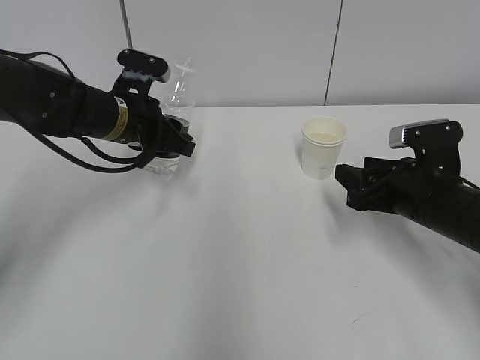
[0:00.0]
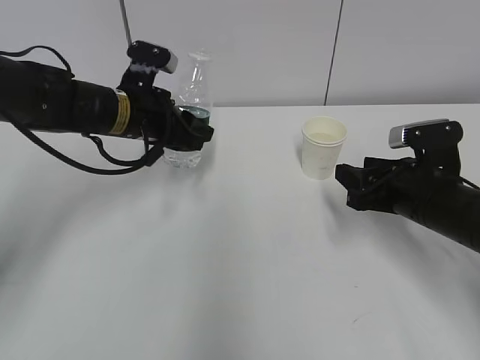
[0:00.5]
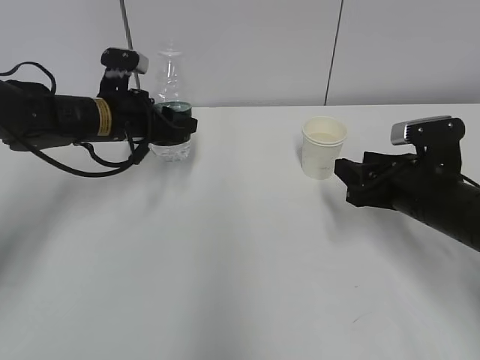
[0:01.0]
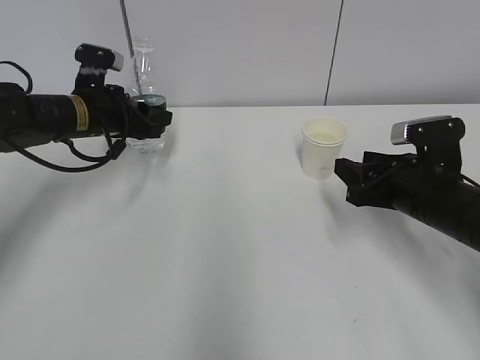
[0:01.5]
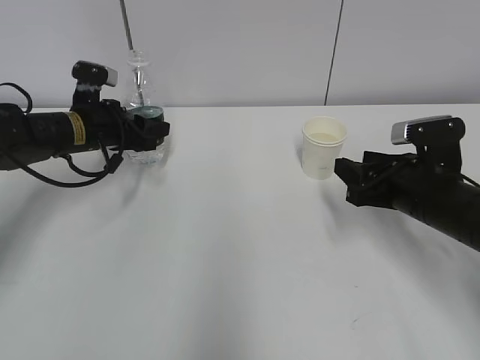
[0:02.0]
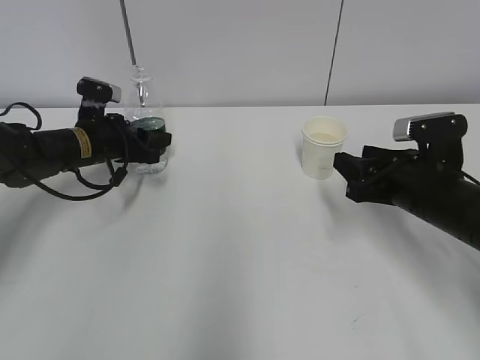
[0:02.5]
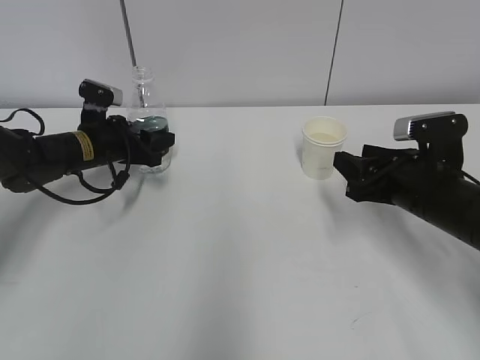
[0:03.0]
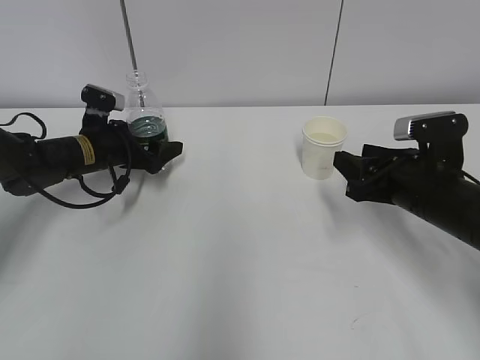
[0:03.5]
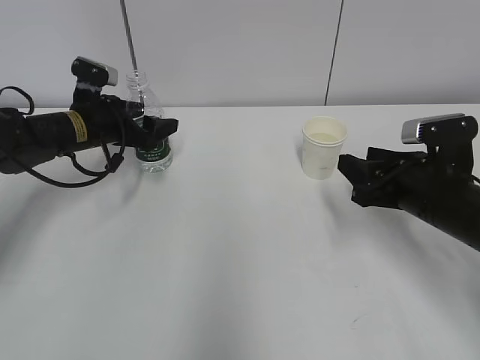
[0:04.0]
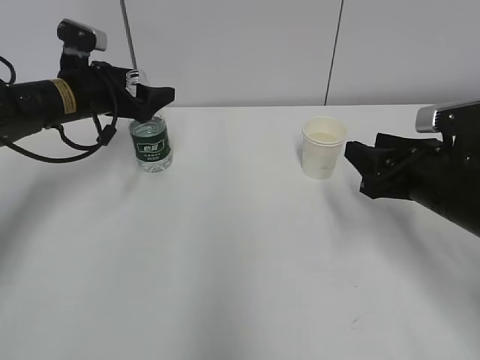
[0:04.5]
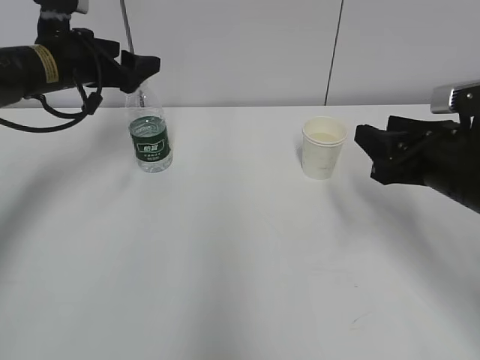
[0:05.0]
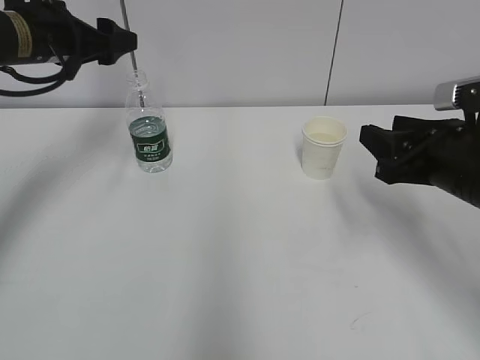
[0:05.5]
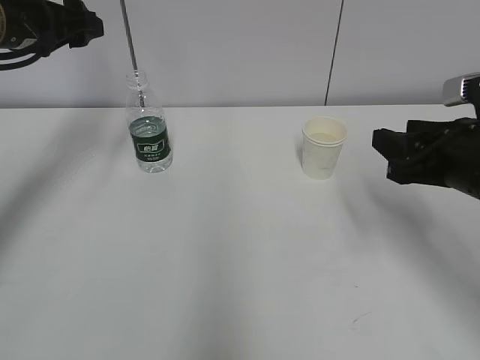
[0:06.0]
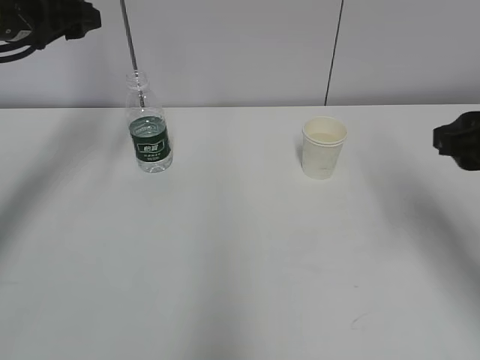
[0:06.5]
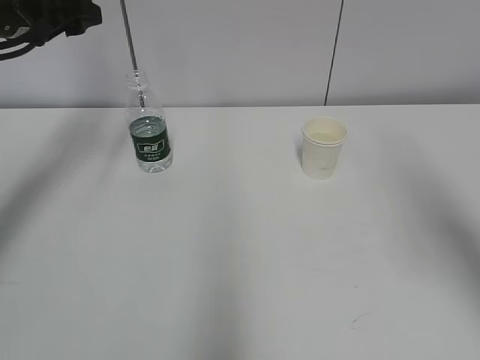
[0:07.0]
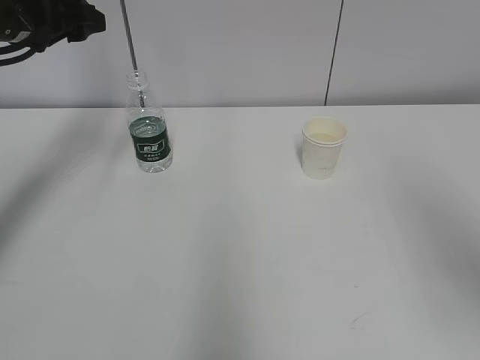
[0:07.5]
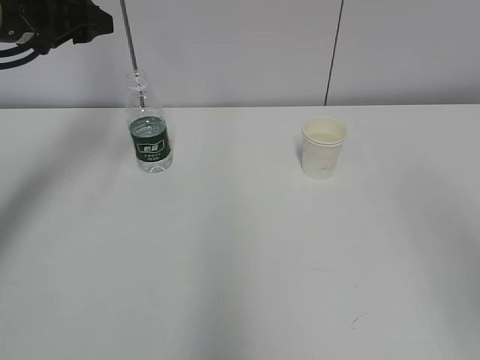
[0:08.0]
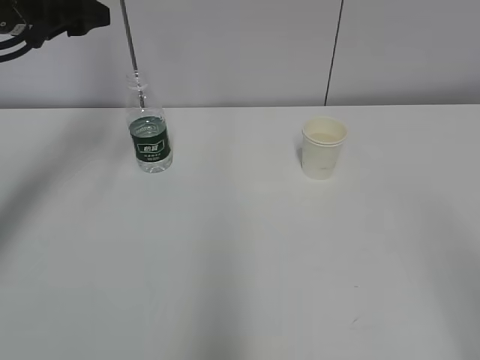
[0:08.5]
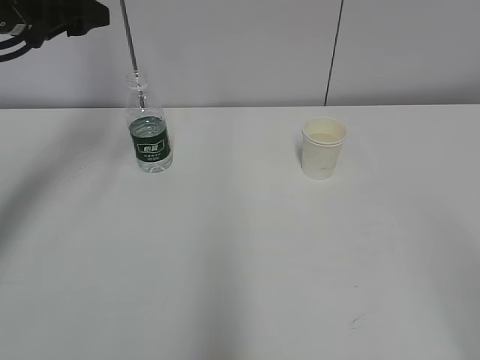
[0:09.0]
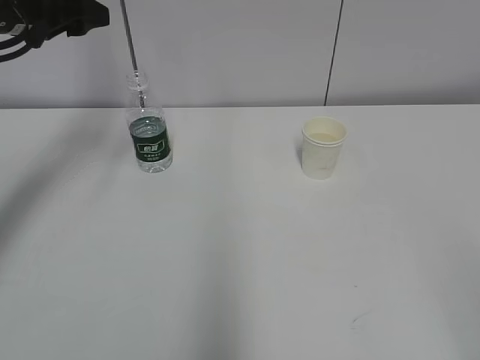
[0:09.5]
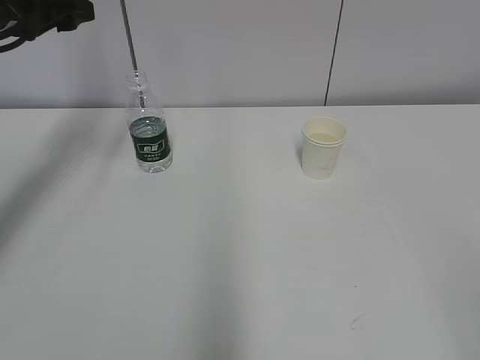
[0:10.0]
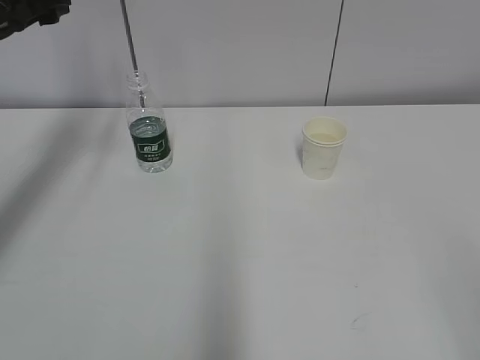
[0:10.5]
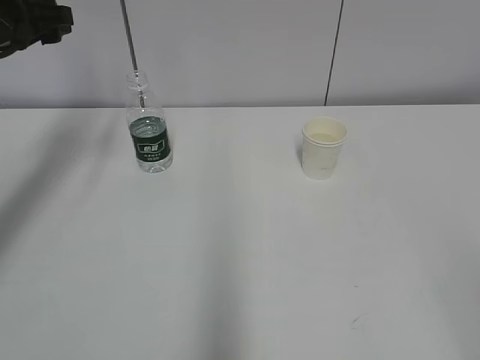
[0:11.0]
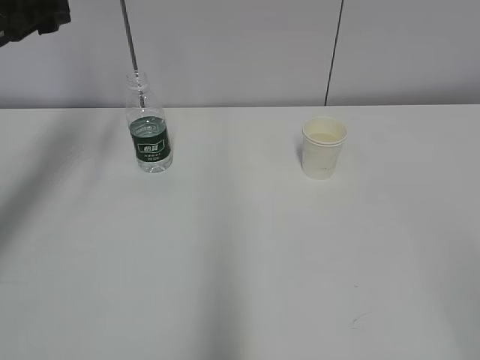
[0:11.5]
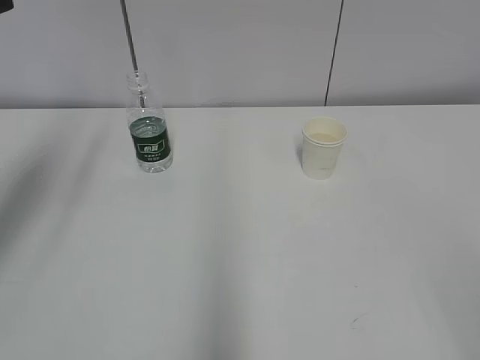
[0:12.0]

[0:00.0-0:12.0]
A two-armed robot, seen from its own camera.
0:00.0 to 0:02.0: The left gripper travels to the left by roughly 5 cm.
0:02.0 to 0:04.0: The left gripper opens.
0:04.0 to 0:06.0: The right gripper is displaced upward by roughly 5 cm. Meanwhile the left gripper moves upward, about 15 cm.
0:06.0 to 0:08.0: The right gripper travels backward and upward by some 25 cm.
0:10.0 to 0:12.0: The left gripper goes approximately 10 cm backward.

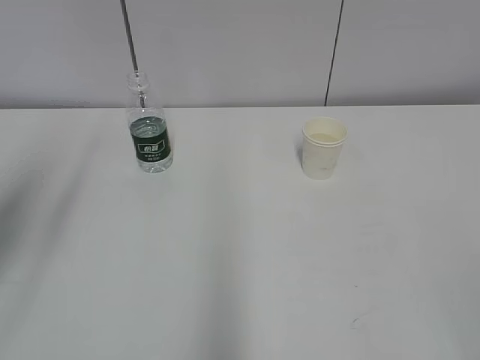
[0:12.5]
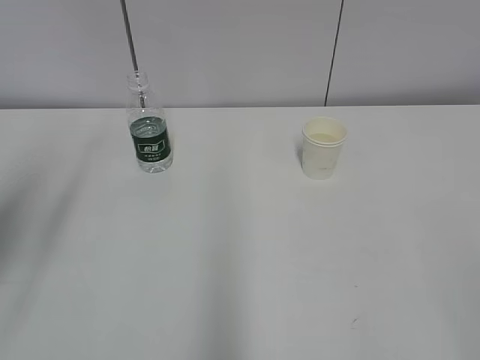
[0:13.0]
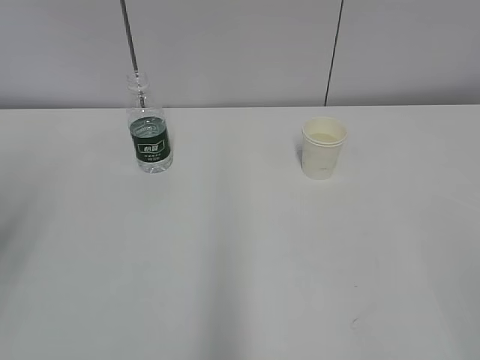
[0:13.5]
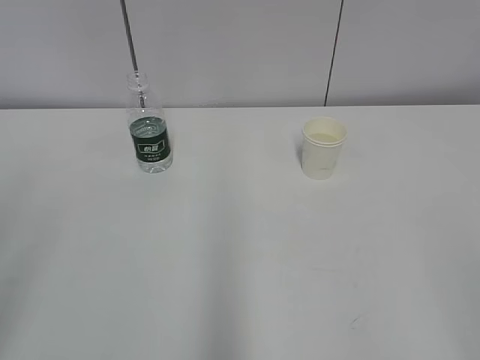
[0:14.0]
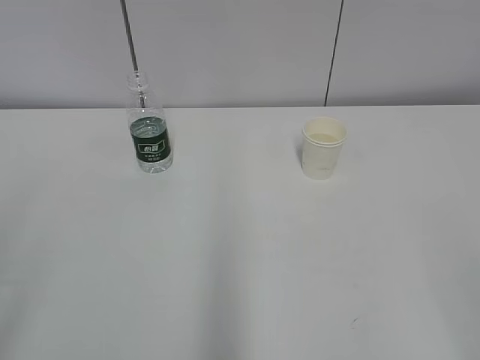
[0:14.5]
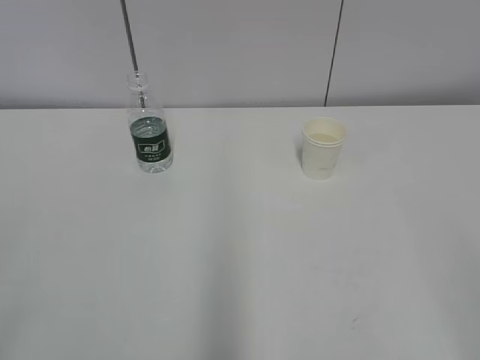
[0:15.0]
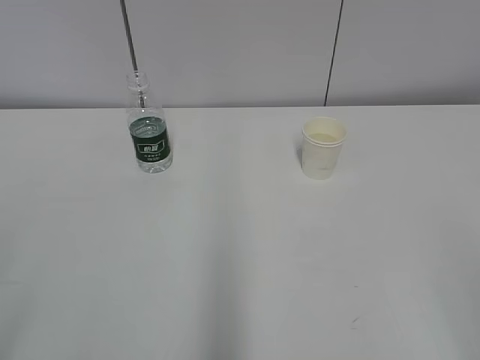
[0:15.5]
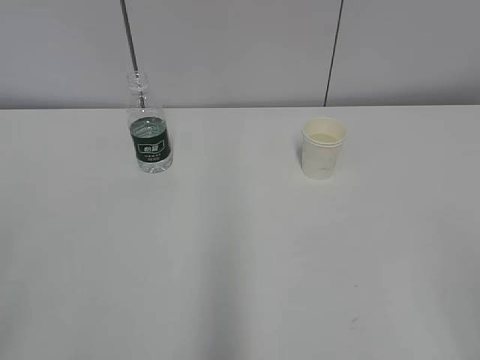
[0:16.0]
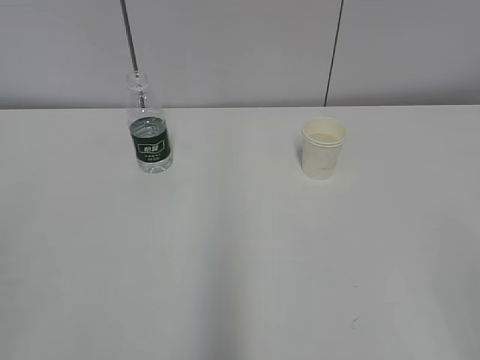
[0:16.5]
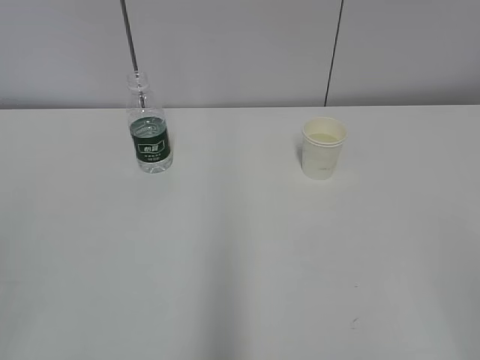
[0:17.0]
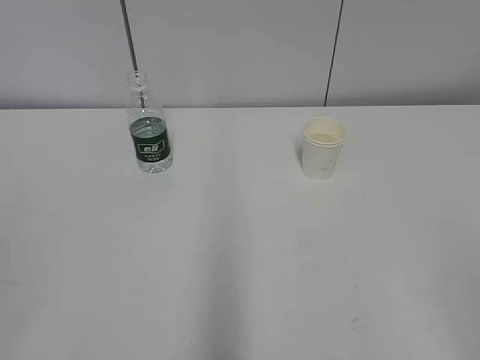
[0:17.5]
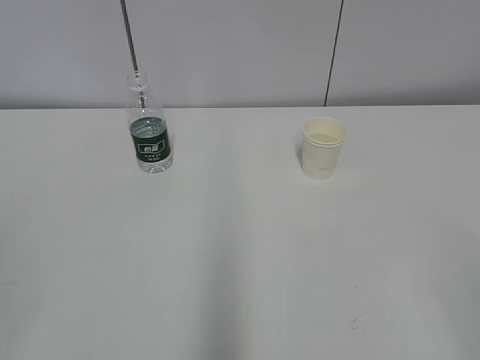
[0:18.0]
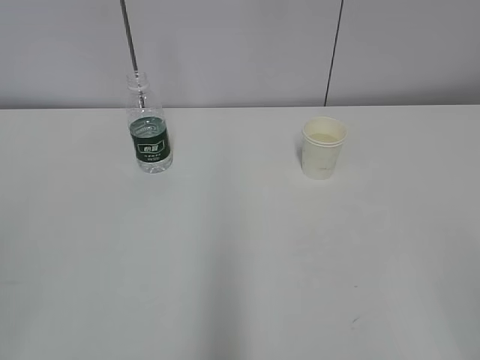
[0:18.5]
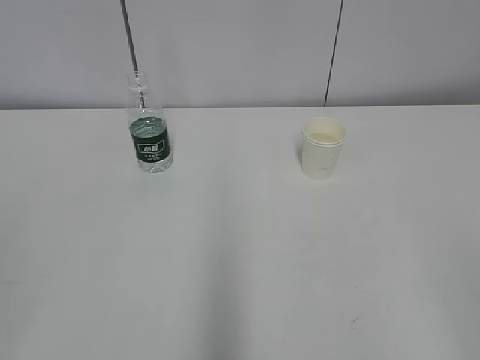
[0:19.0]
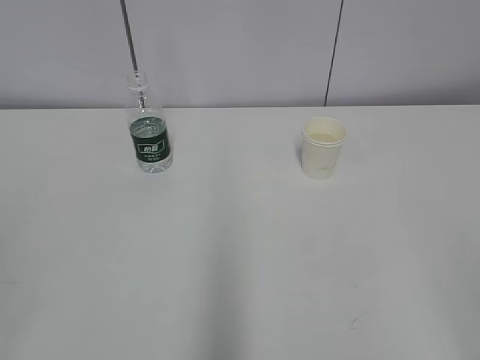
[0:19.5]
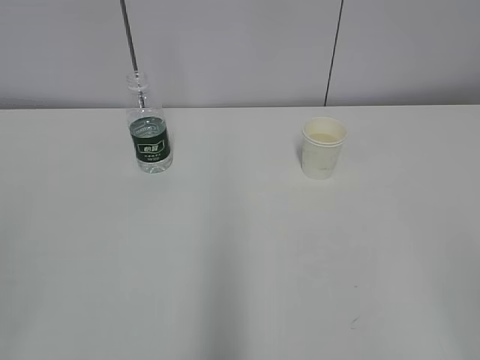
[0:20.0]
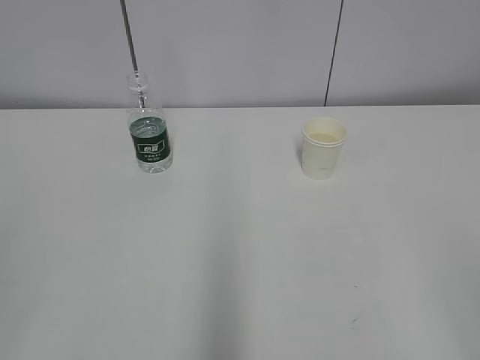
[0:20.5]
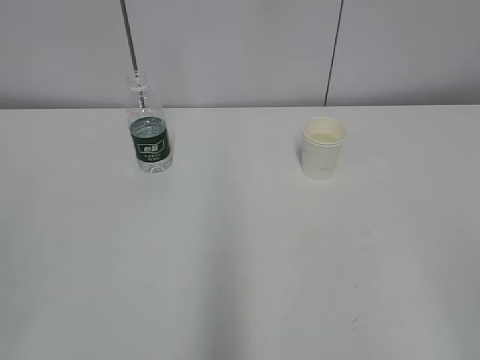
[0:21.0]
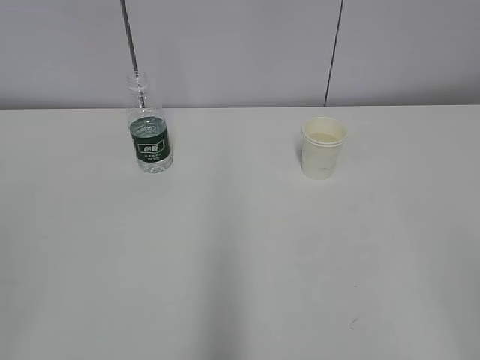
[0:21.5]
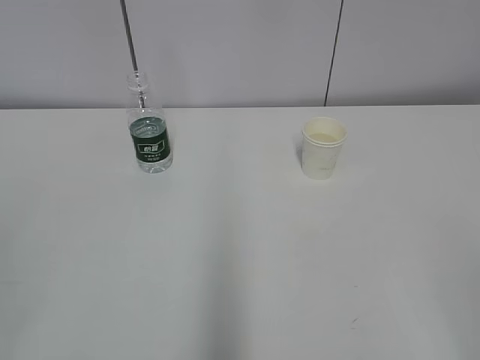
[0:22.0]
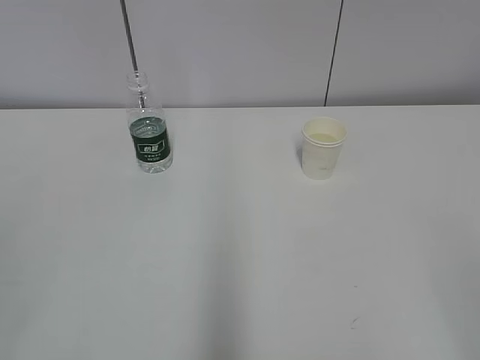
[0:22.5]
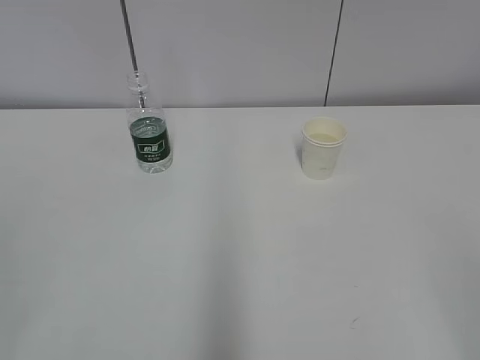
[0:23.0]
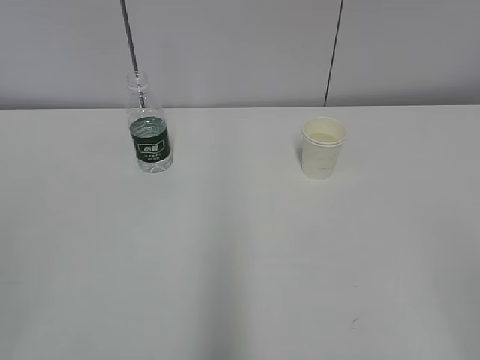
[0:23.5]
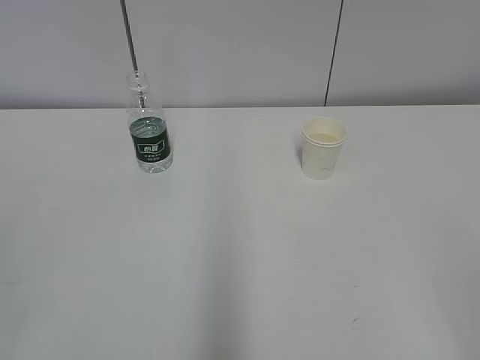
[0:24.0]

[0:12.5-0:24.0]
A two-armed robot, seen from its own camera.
0:12.5 to 0:14.5: The left gripper goes about 15 cm backward.
0:16.5 to 0:24.0: The two grippers keep their place.

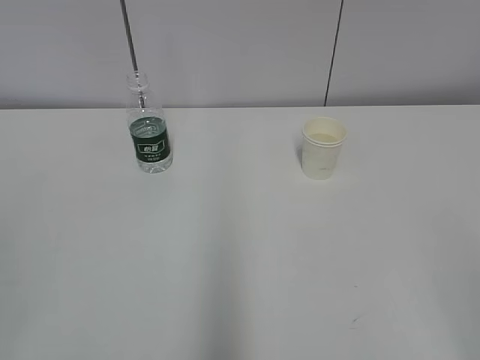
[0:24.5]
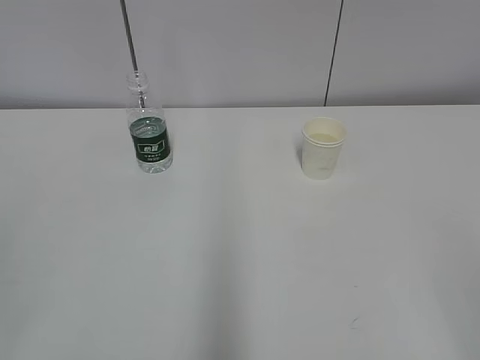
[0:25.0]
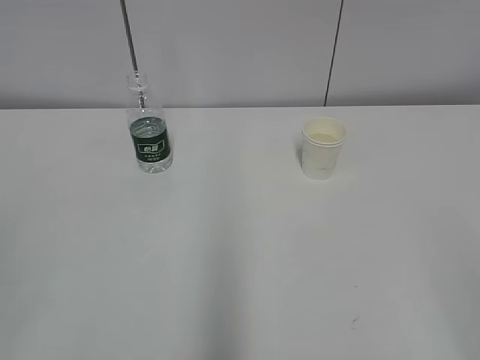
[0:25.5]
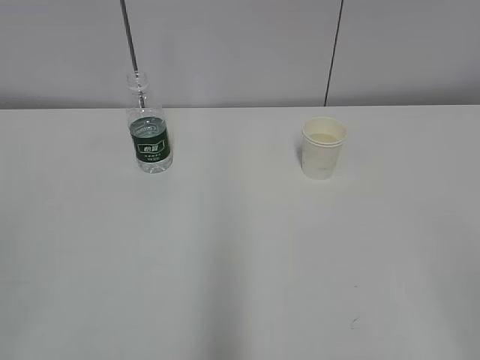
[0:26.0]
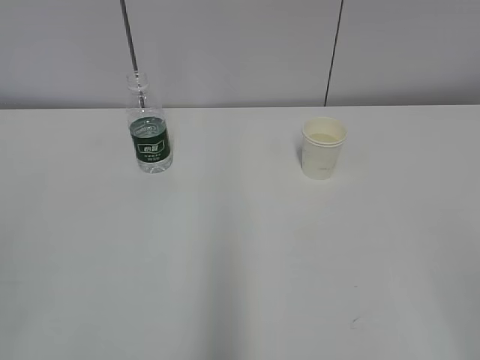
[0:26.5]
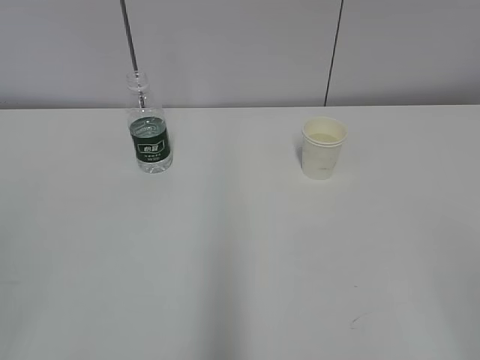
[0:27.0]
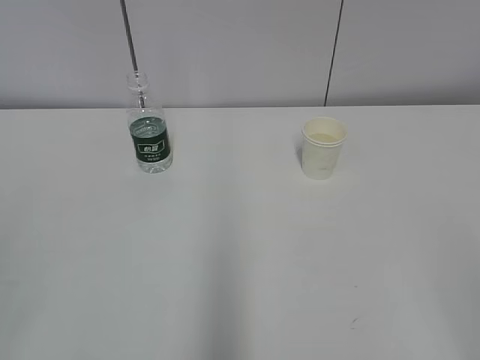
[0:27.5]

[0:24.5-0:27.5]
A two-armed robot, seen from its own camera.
0:24.5 to 0:27.5: Neither gripper changes place.
